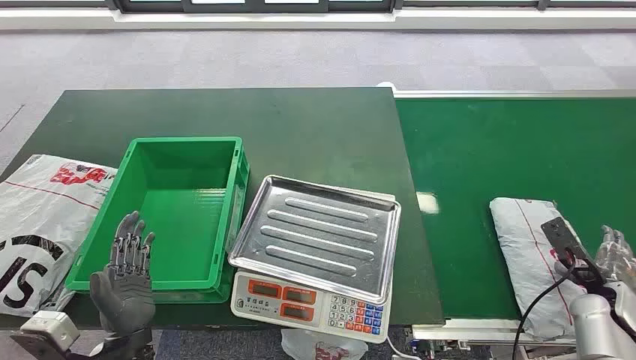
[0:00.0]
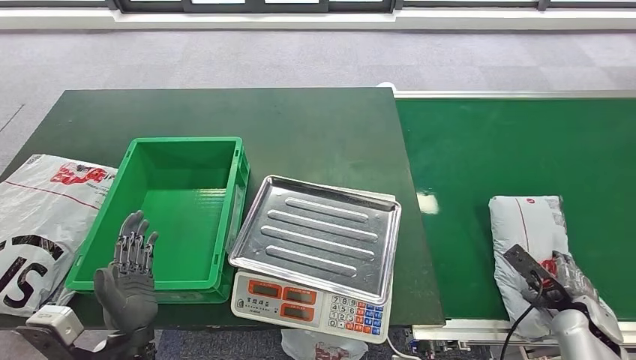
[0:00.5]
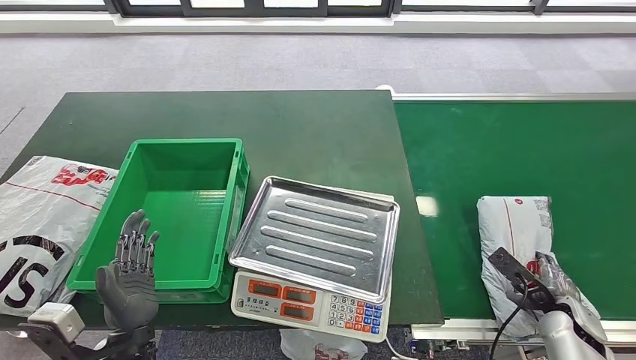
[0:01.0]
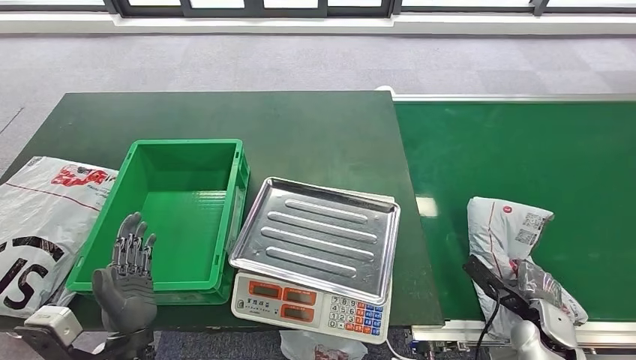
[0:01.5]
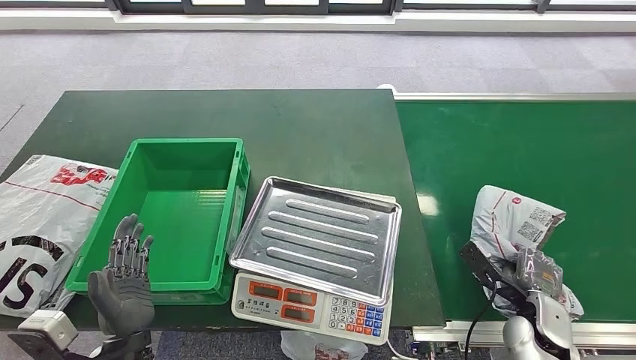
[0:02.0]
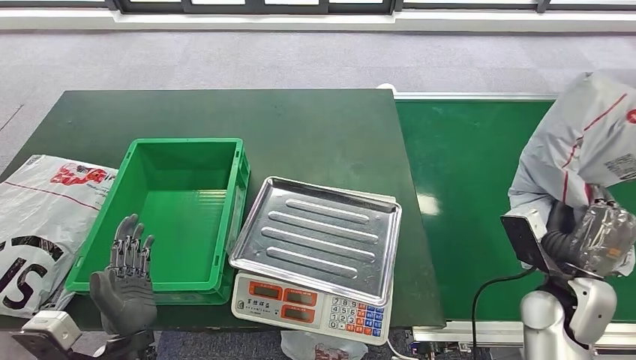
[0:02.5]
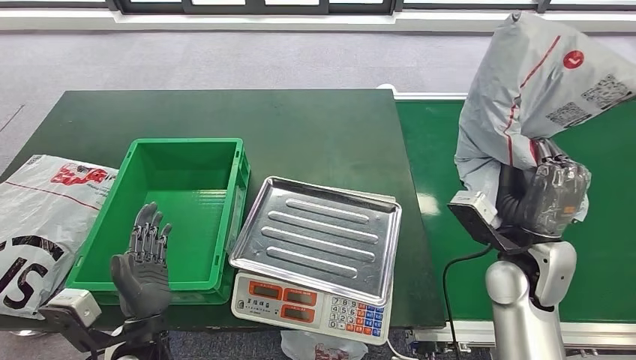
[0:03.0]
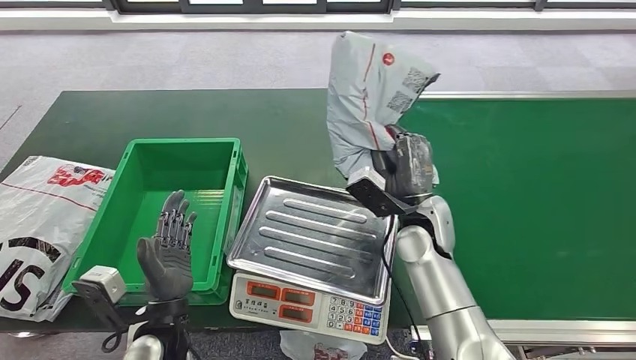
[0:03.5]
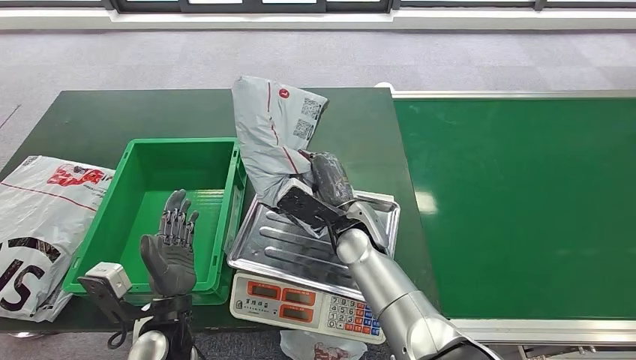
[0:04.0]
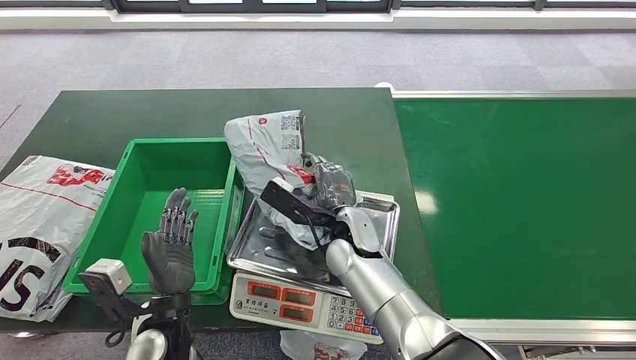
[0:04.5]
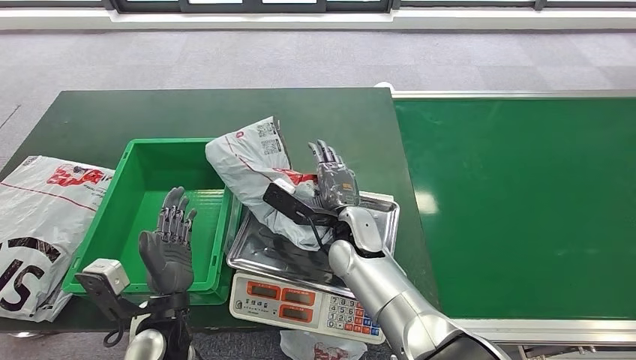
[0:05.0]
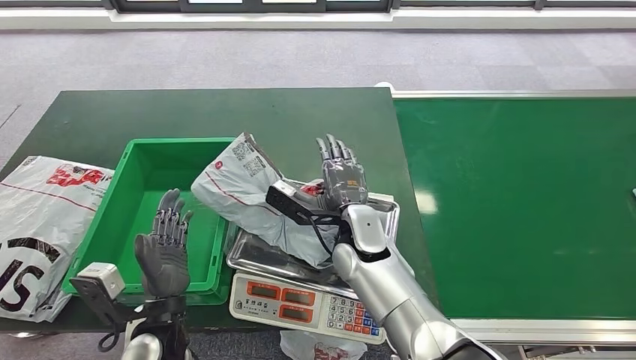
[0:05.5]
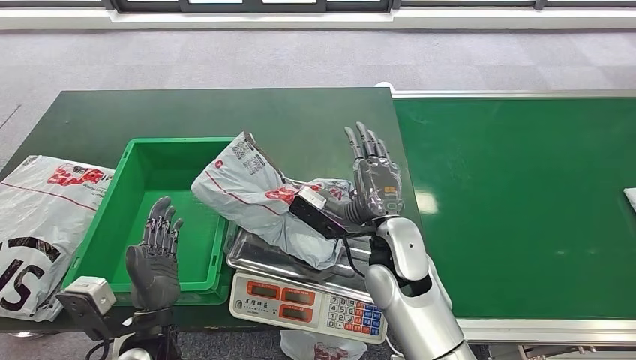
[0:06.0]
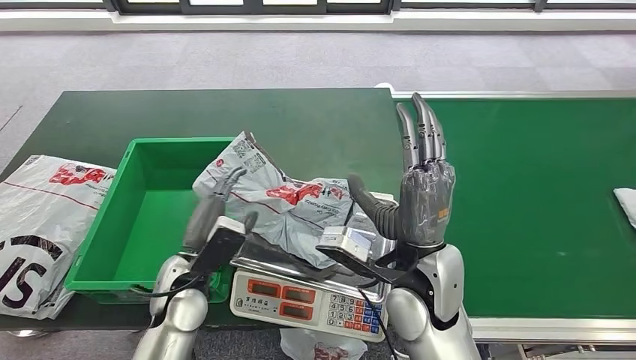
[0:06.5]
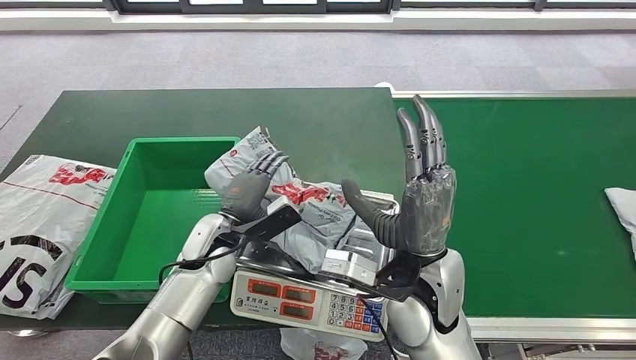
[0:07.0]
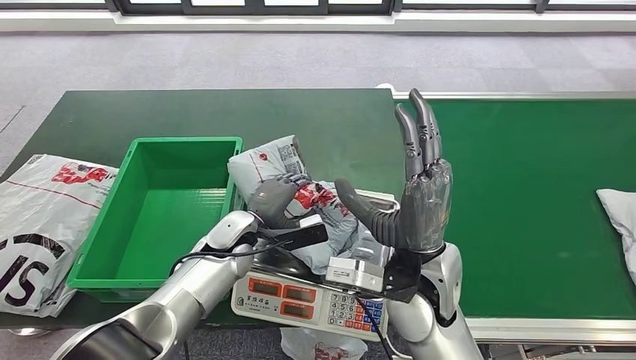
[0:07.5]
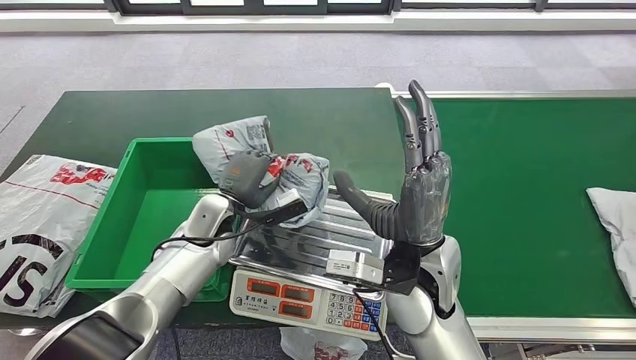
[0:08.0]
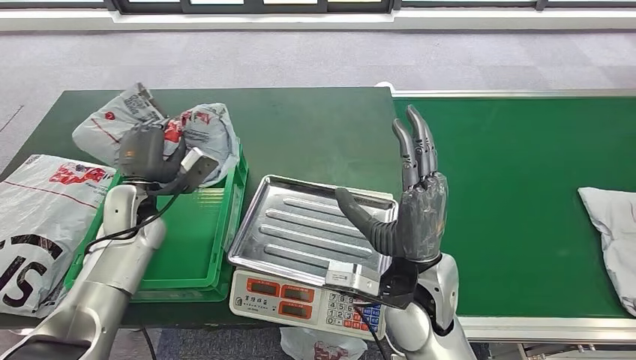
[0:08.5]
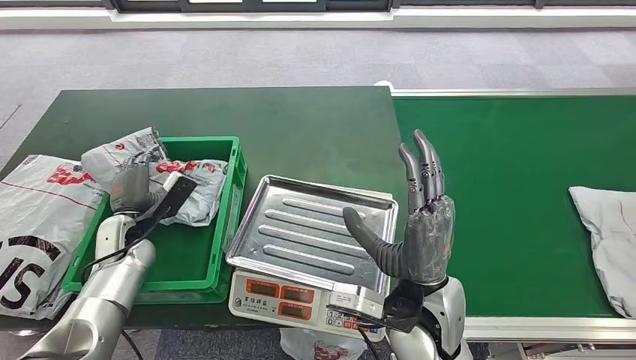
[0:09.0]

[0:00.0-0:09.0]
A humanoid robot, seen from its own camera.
Step, 0:00.0 to 0:02.5: Pick up the package from the conveyor belt.
Step, 0:03.0 to 0:06.0: Place the package onto the inbound machine.
Step, 0:06.5 to 0:08.0: Pick up the package from the inbound machine.
Step, 0:08.5 to 0:09.0: Place the package into the parcel locker.
